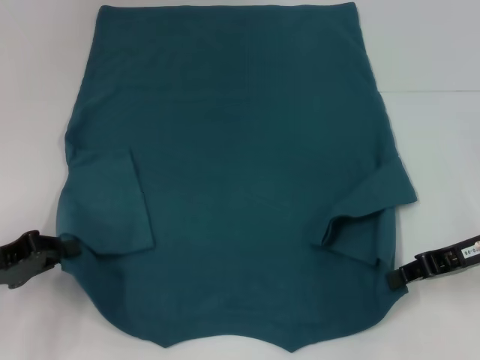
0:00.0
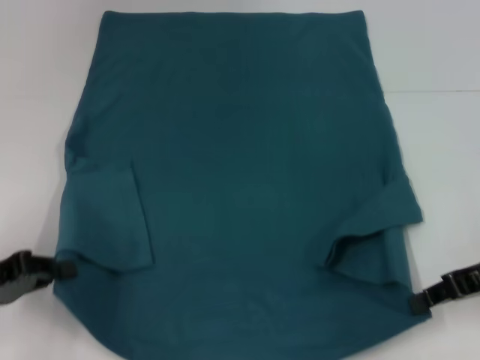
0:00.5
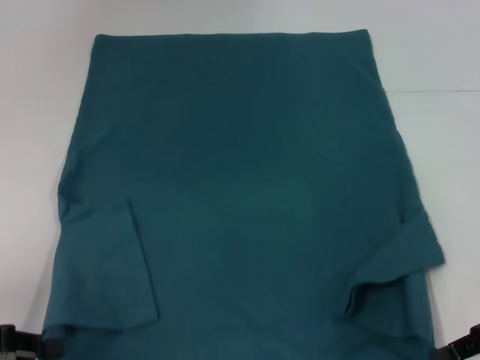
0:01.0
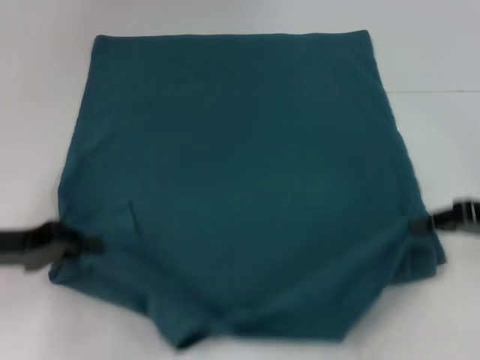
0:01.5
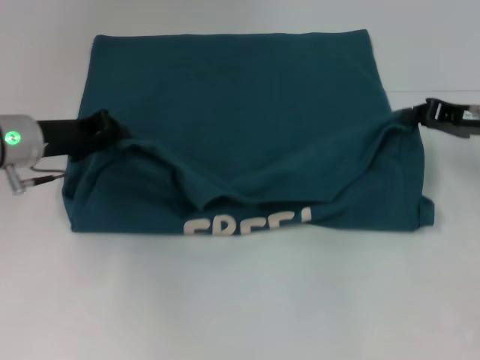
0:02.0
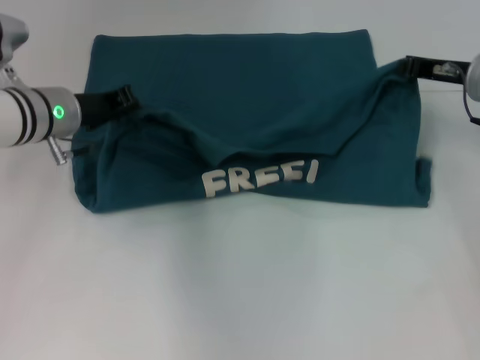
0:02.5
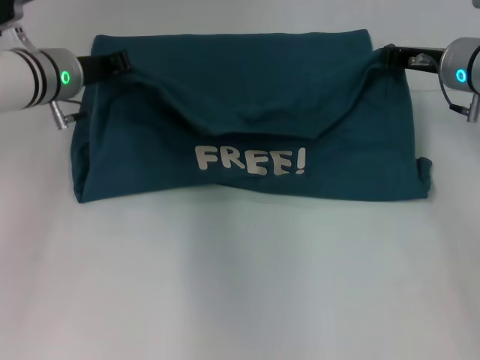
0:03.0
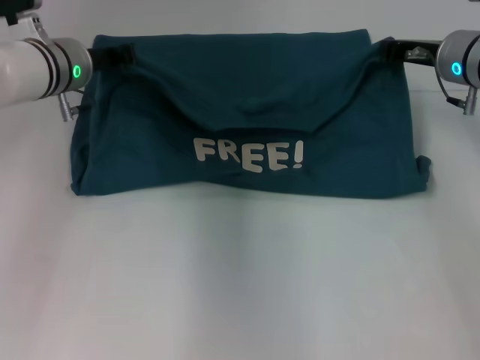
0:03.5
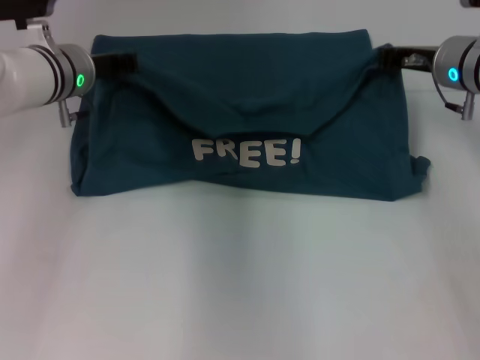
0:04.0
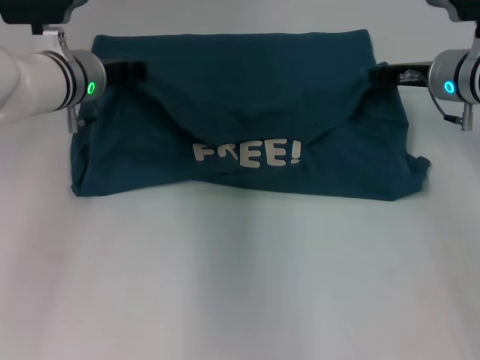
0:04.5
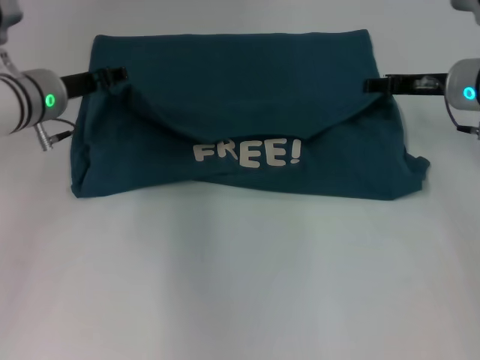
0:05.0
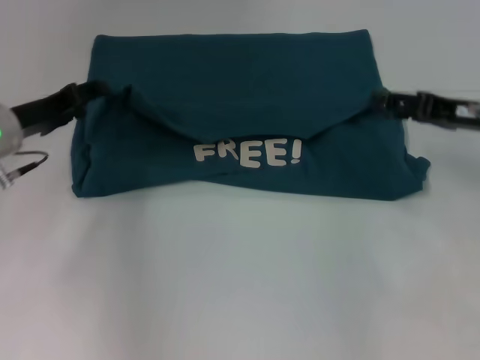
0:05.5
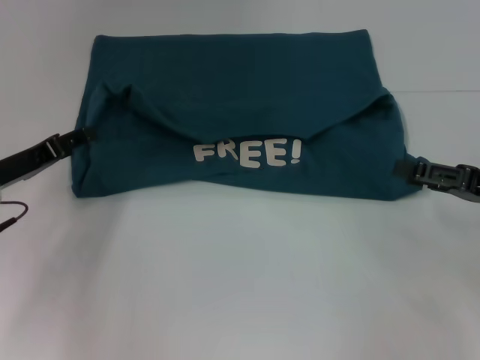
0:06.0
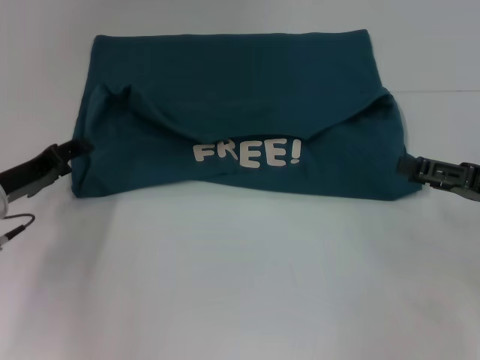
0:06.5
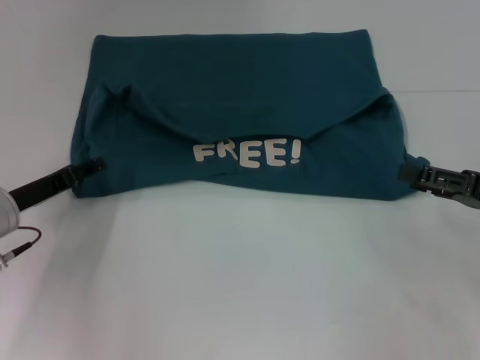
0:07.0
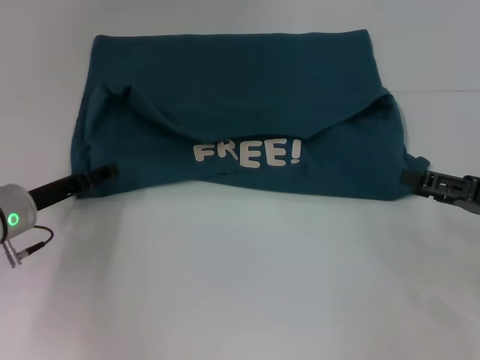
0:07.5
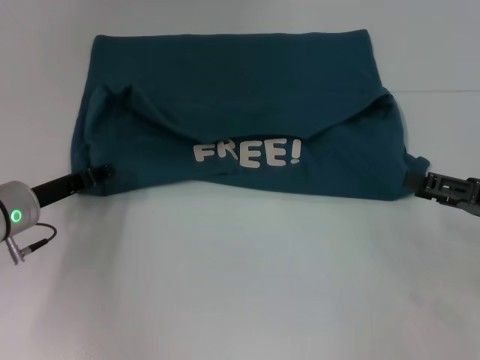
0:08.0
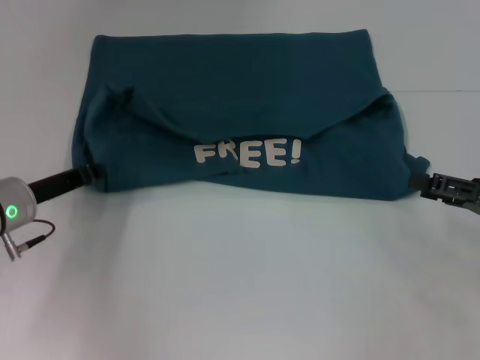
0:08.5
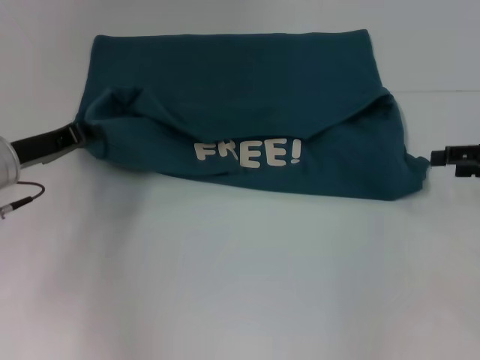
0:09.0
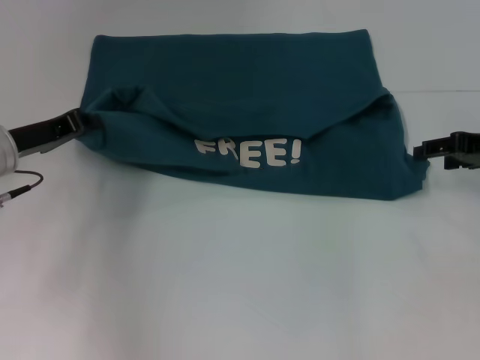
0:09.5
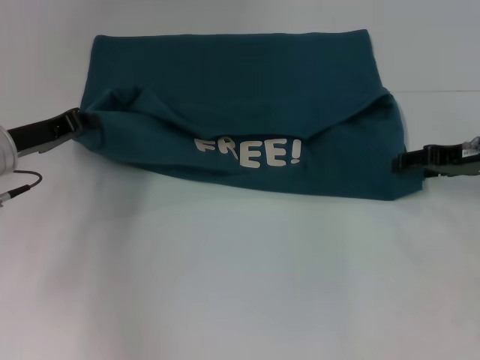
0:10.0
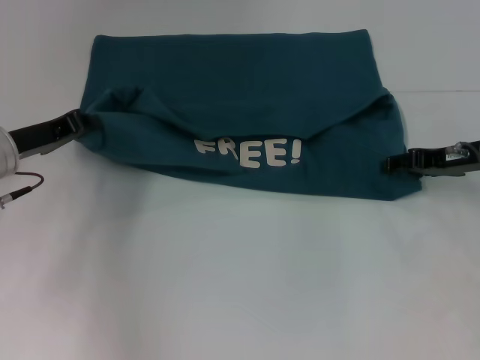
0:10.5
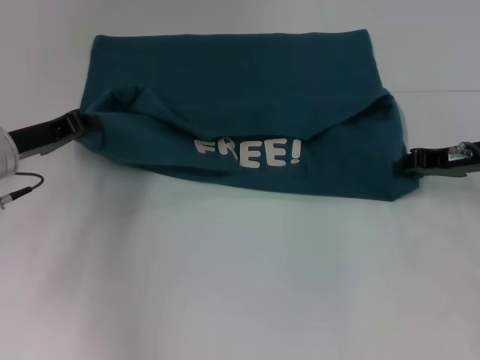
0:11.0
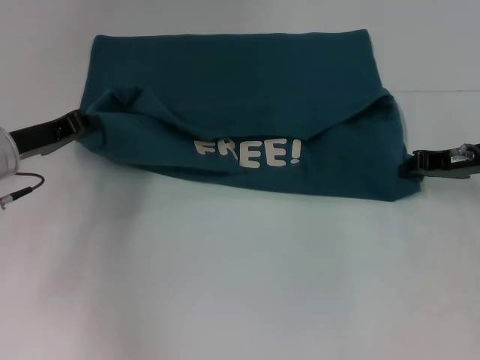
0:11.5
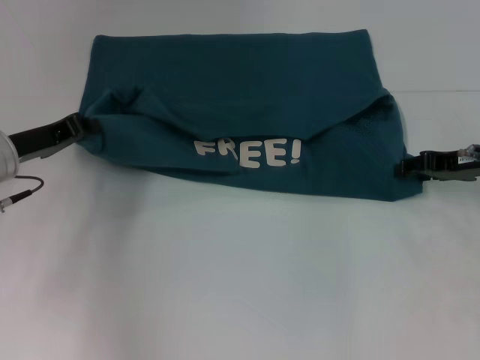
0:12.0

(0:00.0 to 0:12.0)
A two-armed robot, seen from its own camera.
Step, 0:00.0 - 0:05.0: Fold the clothes to the left.
Step, 0:00.0 - 0:05.0: Fold the clothes to the right.
0:00.0 - 0:02.0: The left gripper shifts about 15 cm forward and to the right, while the right gripper goes about 5 cm forward.
0:02.0 - 0:04.0: The right gripper shifts roughly 10 cm to the left and forward. Meanwhile the left gripper is displaced to the right and forward by roughly 10 cm.
0:04.0 - 0:06.0: The right gripper travels backward and to the right by about 20 cm, and opens, while the left gripper travels backward, to the left and downward by approximately 15 cm, and opens.
0:06.0 - 0:08.0: The grippers stay close to where they were, moving slightly.
0:08.0 - 0:10.0: The right gripper shifts about 10 cm forward, while the left gripper shifts approximately 5 cm upward, and closes.
0:10.0 - 0:12.0: The right gripper closes, then opens again.

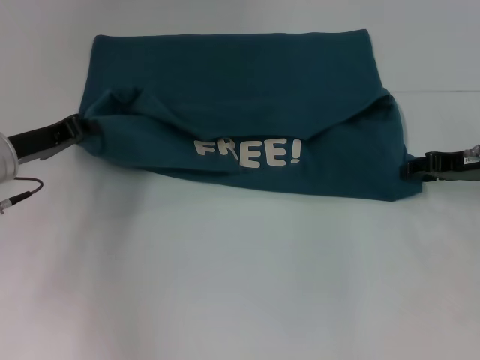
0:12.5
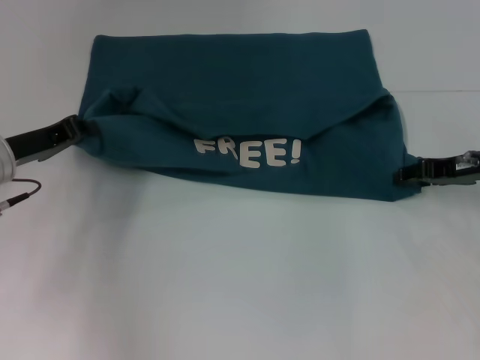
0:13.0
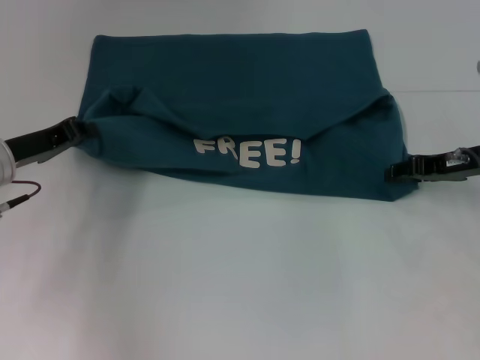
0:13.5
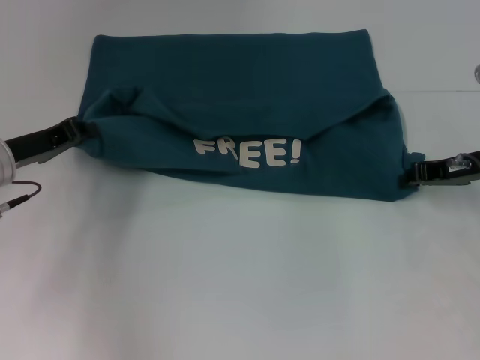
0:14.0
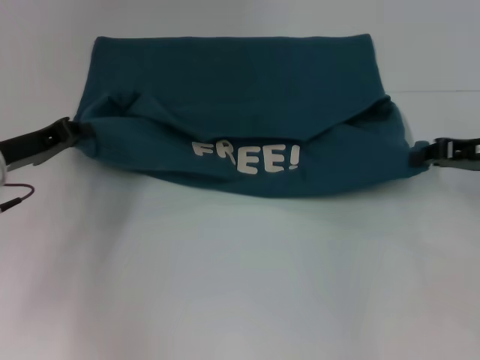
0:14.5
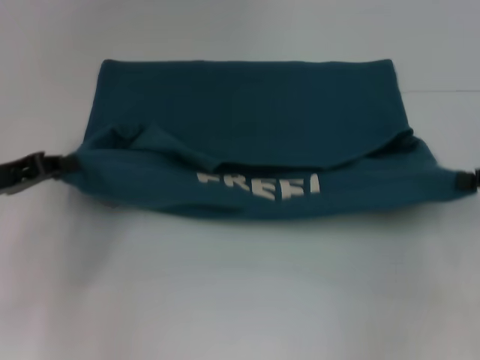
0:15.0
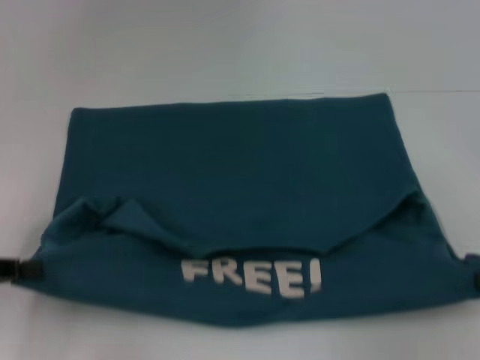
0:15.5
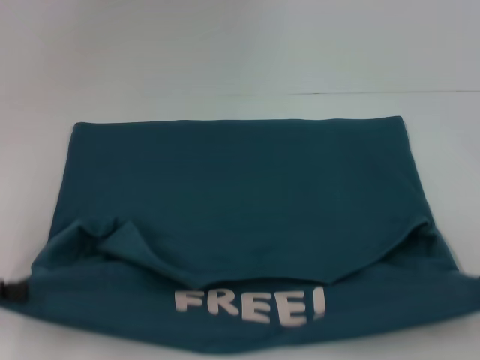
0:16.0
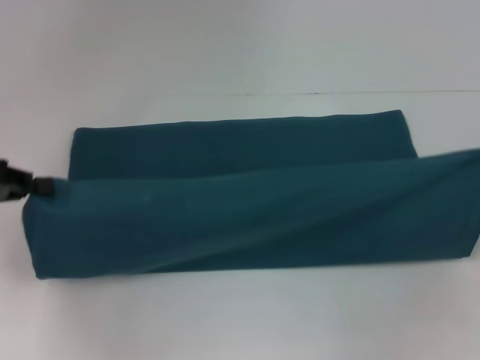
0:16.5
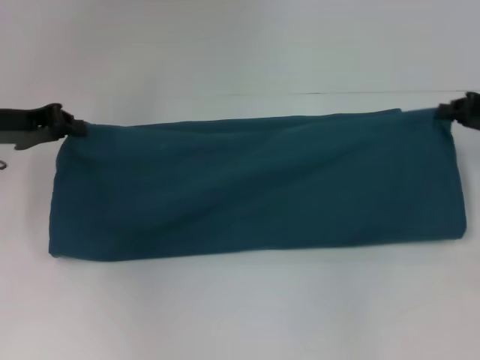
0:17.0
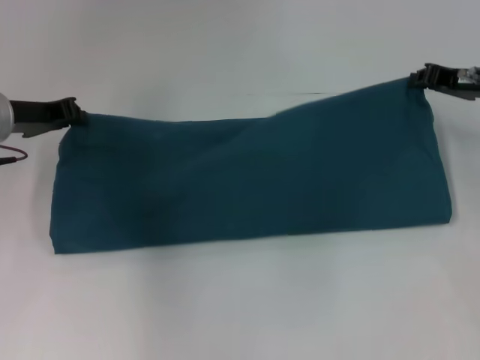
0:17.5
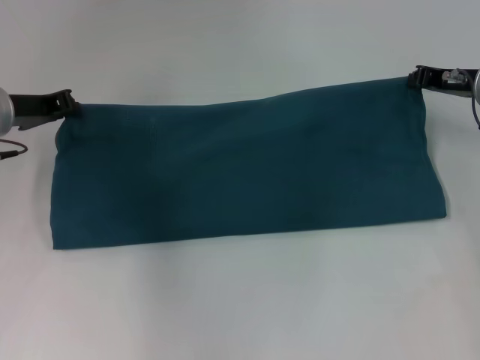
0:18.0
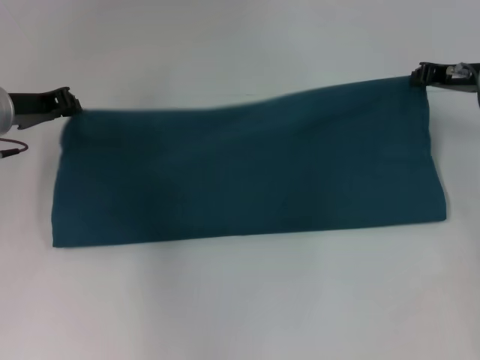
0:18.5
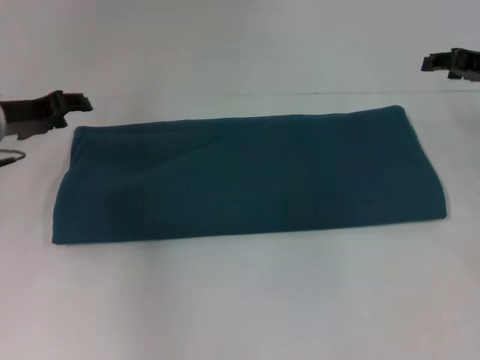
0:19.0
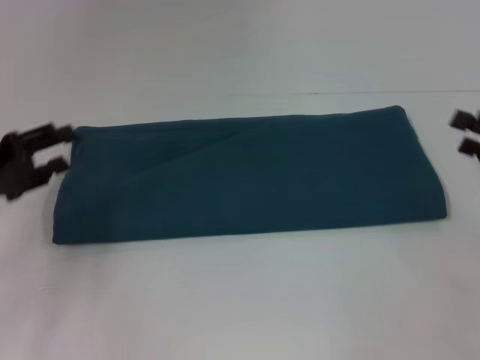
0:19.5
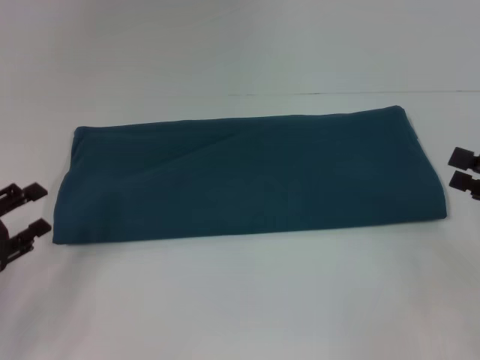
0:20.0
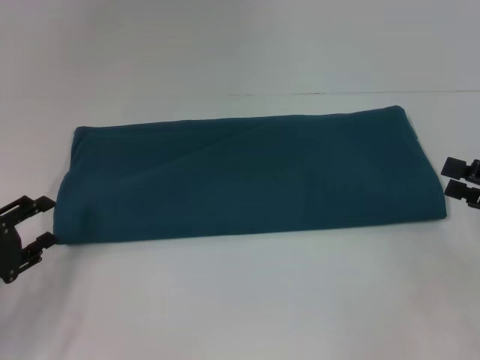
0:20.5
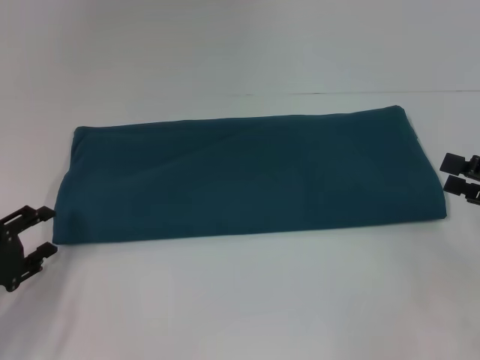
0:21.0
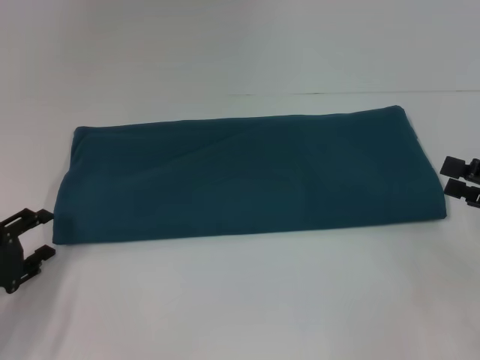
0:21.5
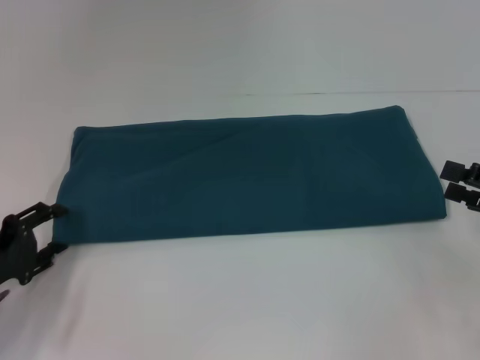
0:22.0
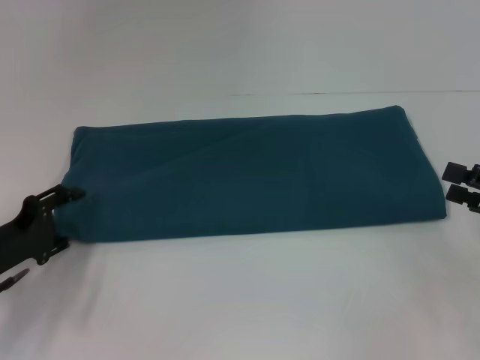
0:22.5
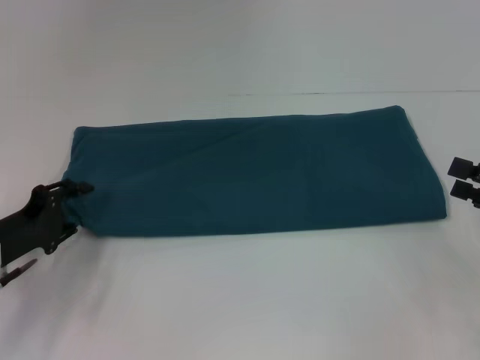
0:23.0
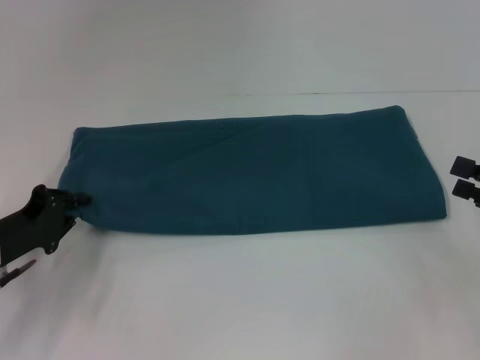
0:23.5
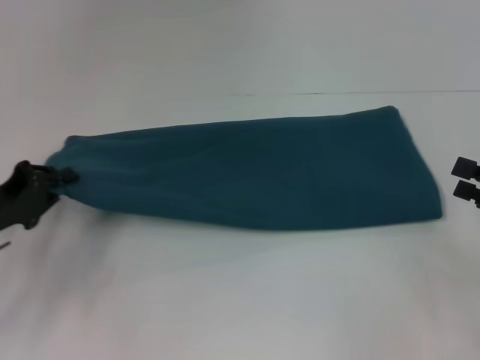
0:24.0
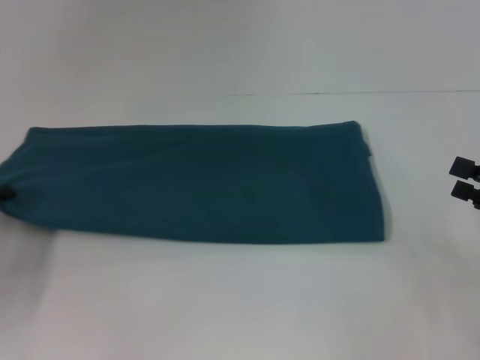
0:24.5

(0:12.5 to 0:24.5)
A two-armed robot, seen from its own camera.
Step, 0:12.5 - 0:15.5: Pull the clothes with your left hand.
Step, 0:12.5 - 0:15.5: Pull the clothes with your right hand.
Step, 0:16.0 - 0:18.5: Fold the clothes to the right.
0:12.5 - 0:14.5: The right gripper closes.
0:14.5 - 0:16.5: The right gripper goes roughly 10 cm to the right and backward. The left gripper moves upward and to the left, approximately 10 cm.
0:16.5 - 0:18.5: The left gripper is displaced forward and to the right by approximately 15 cm, while the right gripper goes approximately 20 cm forward and to the left.
0:18.5 - 0:20.5: The left gripper travels backward and downward by about 20 cm, and opens up. The right gripper moves backward and to the right, about 20 cm, and opens.
0:20.5 - 0:22.5: The left gripper moves roughly 5 cm.
0:22.5 - 0:24.5: The left gripper shifts approximately 5 cm to the left, and closes up.

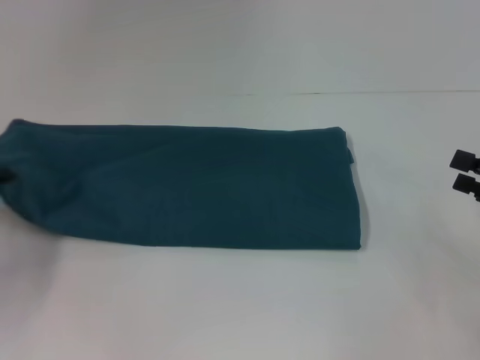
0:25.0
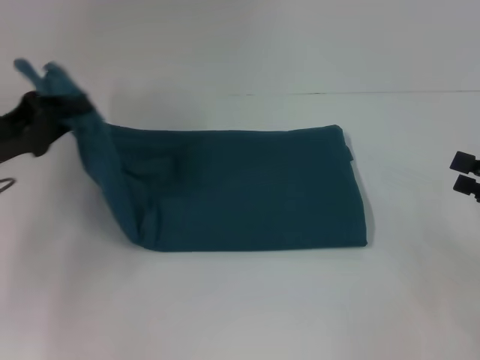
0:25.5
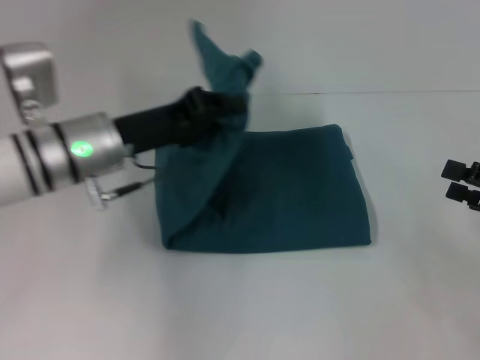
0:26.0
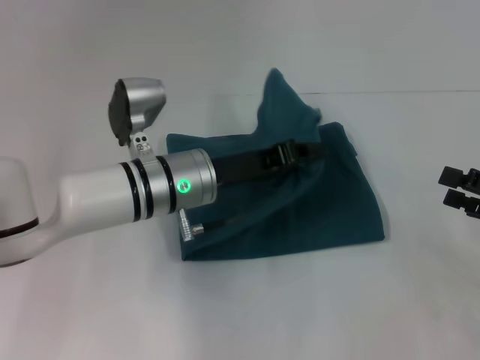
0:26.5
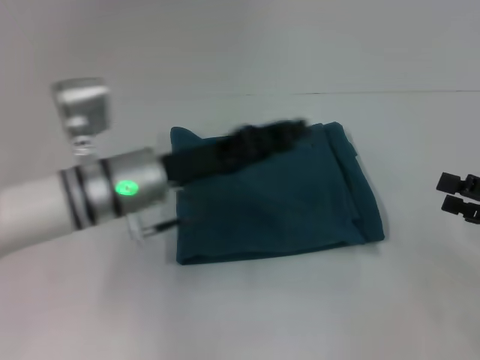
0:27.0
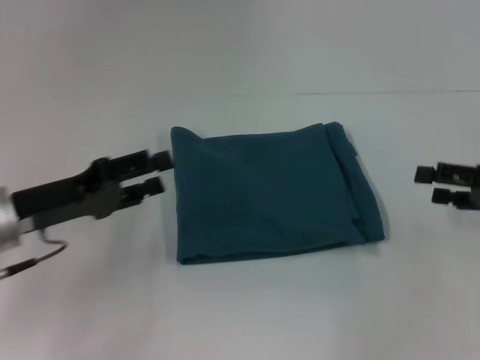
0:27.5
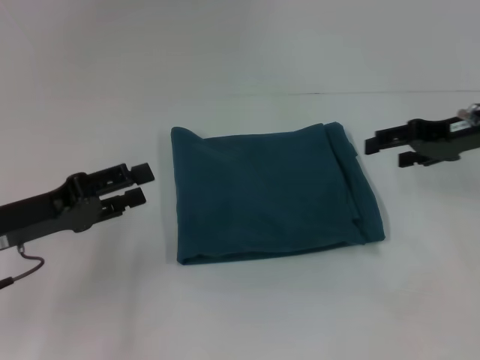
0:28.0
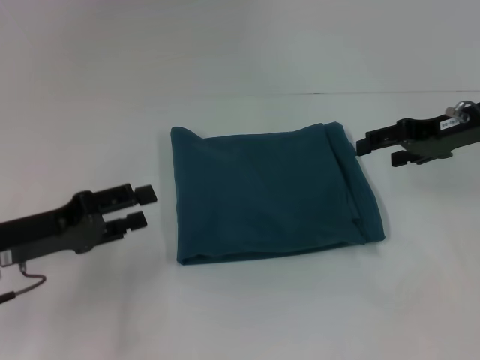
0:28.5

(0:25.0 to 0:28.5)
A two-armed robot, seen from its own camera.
0:25.0 - 0:27.0: The left gripper shifts about 25 cm to the right.
0:27.0 - 0:28.5: The right gripper moves forward, to the left and upward, about 20 cm. Meanwhile the left gripper moves to the left and backward, roughly 15 cm, and opens.
